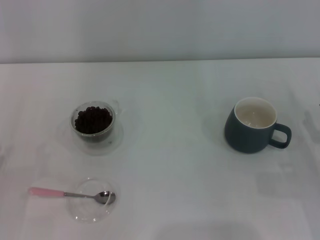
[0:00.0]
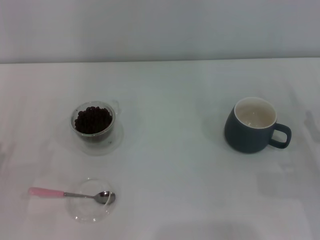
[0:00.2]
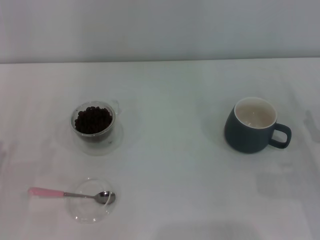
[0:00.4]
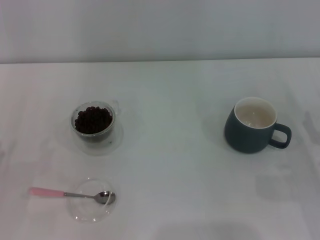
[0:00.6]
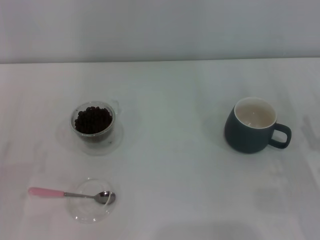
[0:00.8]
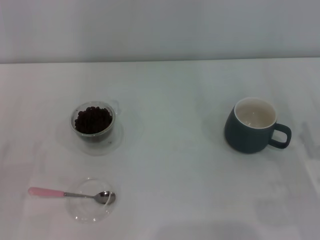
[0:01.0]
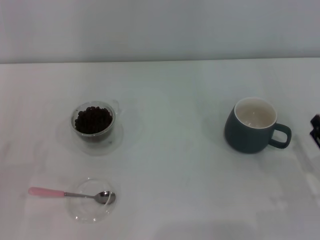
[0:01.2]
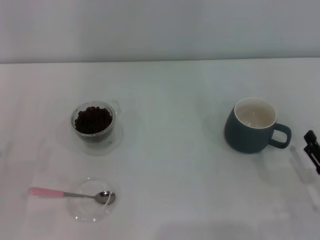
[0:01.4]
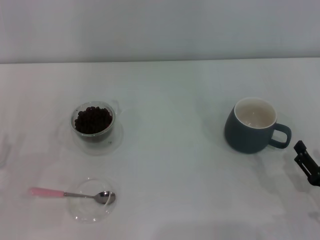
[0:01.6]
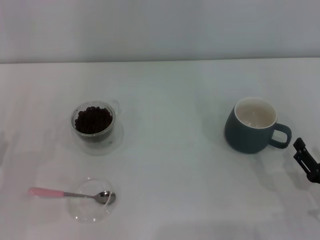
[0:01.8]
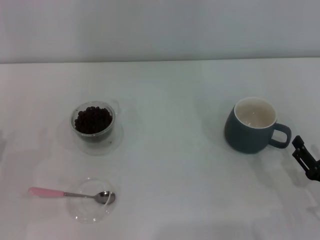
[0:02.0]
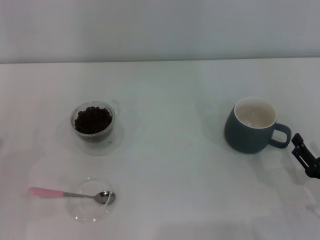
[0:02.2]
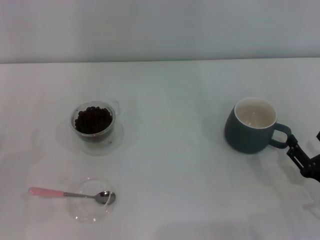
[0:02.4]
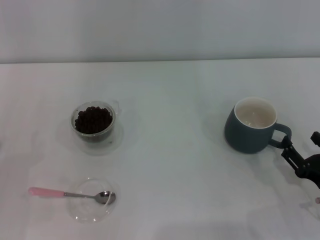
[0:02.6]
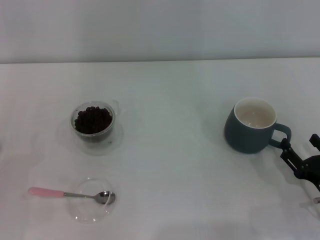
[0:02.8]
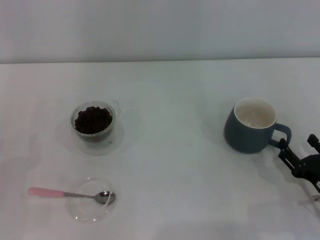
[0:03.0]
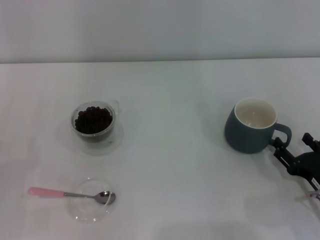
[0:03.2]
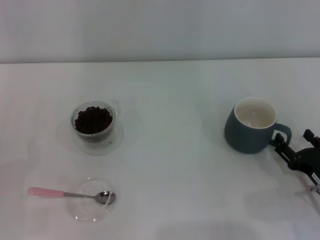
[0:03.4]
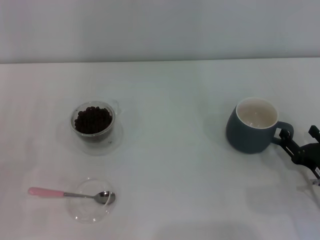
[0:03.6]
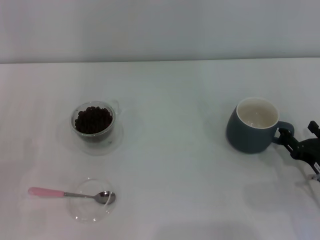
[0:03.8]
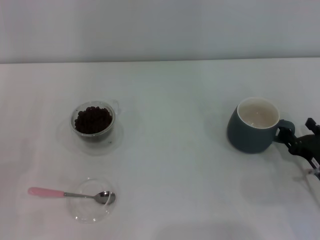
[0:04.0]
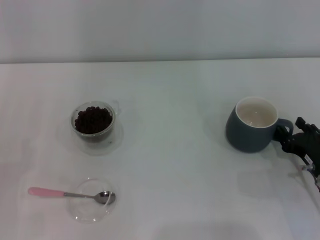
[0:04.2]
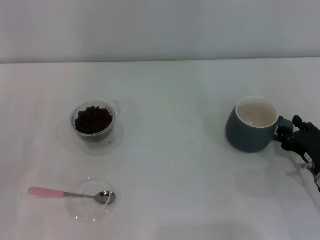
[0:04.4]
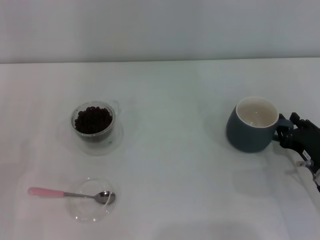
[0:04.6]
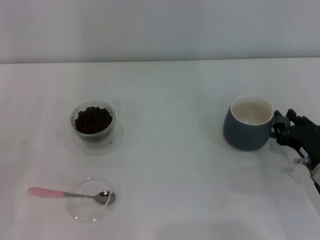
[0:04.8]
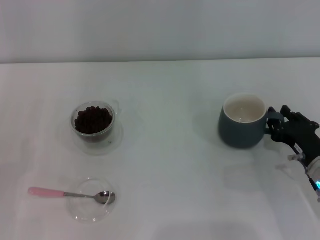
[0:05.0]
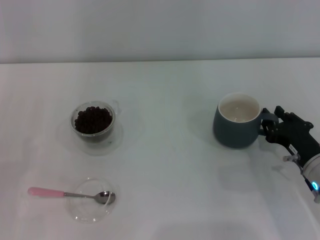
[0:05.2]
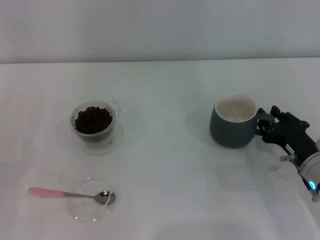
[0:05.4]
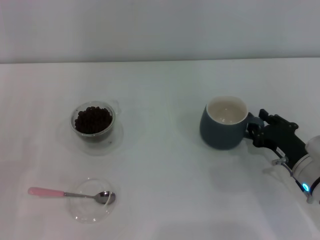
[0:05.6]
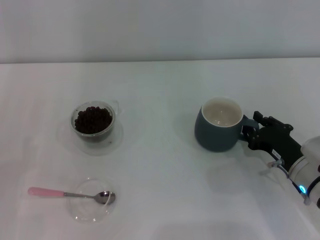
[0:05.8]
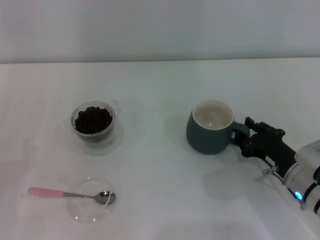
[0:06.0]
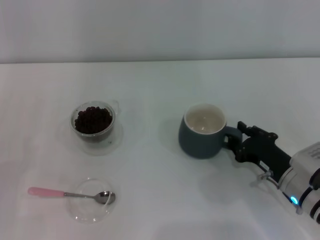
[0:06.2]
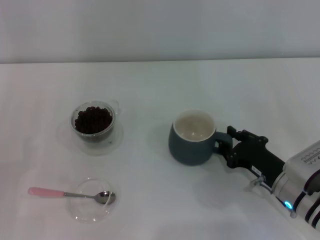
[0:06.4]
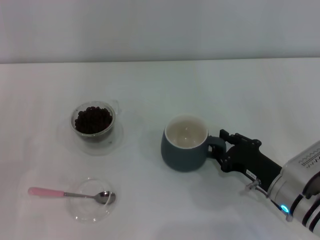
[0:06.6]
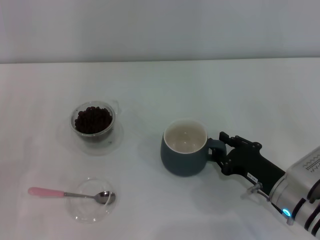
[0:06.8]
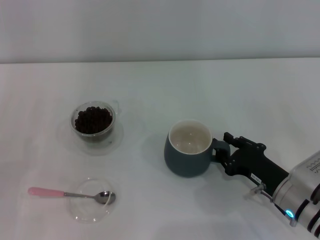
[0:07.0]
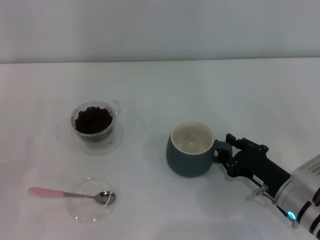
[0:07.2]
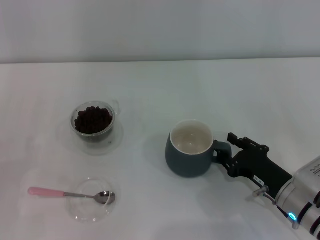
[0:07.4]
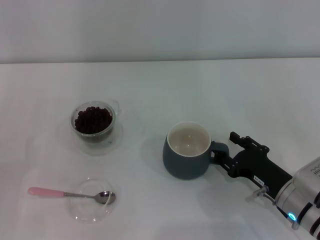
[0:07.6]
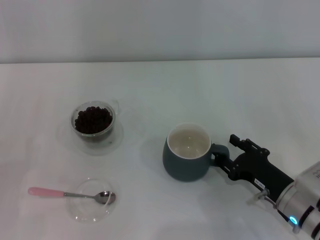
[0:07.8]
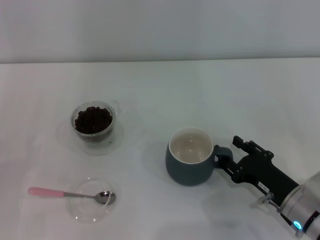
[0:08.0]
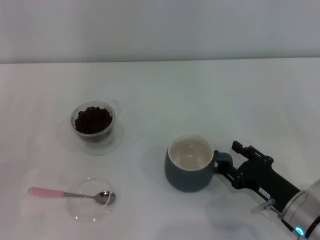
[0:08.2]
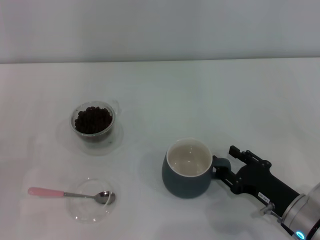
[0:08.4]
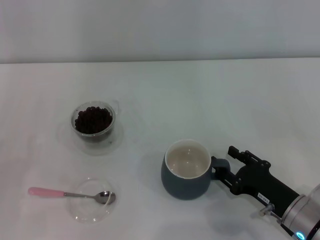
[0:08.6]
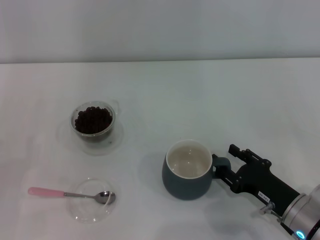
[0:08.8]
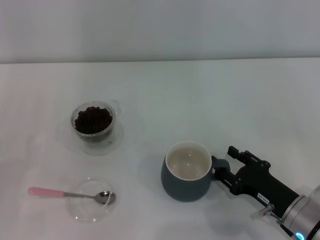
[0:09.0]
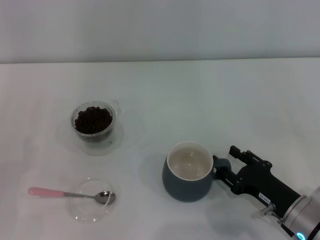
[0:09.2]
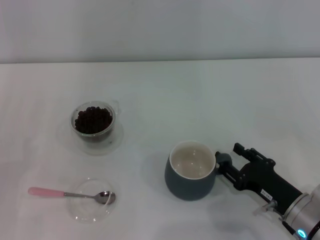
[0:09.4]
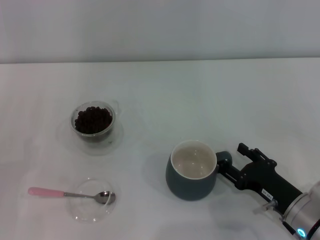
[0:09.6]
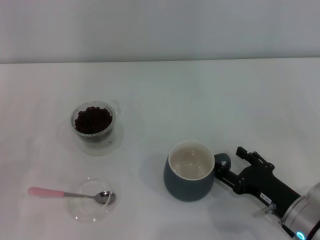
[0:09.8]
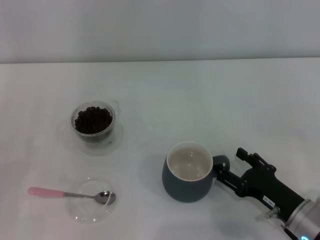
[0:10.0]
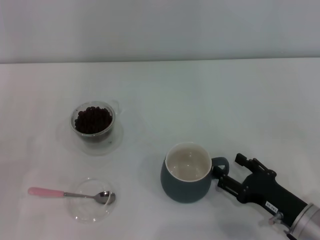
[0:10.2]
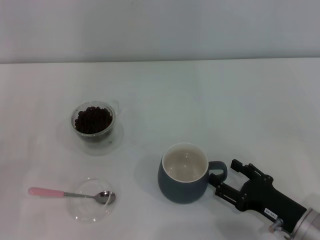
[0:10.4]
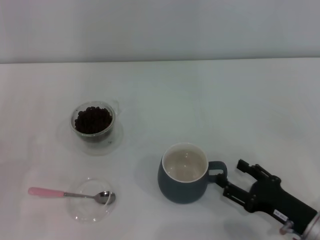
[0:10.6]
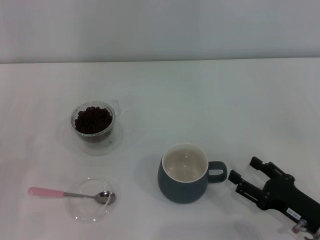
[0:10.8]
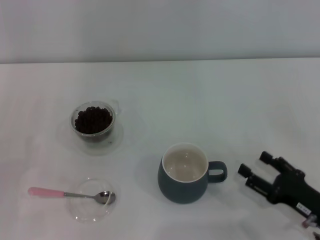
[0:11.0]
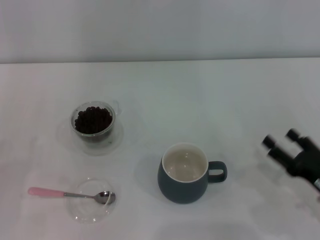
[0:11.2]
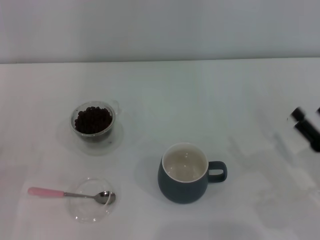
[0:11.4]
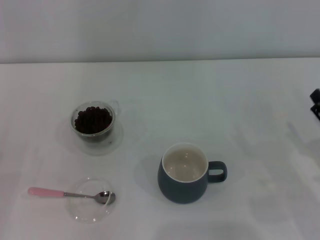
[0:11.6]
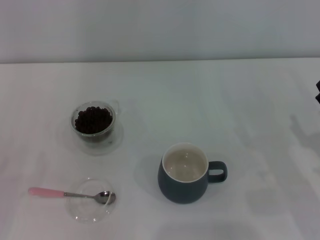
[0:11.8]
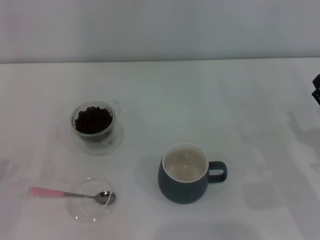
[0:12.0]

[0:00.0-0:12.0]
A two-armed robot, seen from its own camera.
Task of the whole recording: Use a pink spoon to take out the coffee beans from the glass and pour them into the gray cup.
Step, 0:00.0 to 0:10.6: Move the cup to the center of view with the left gripper.
0:00.0 to 0:01.6: The right gripper heads backward, covering roughly 10 cm.
0:01.6 to 0:03.0: There are only small adjustments of the grippers.
0:03.0 to 0:04.4: The right gripper goes approximately 5 cm forward, and closes up.
0:04.4 to 0:06.0: The right gripper closes its fingers.
0:06.0 to 0:07.6: The grippers stay close to where they were, moving slightly.
0:07.6 to 0:09.0: The right gripper opens its fingers.
0:09.0 to 0:10.4: The right gripper opens its fingers.
0:10.4 to 0:12.0: The right gripper is displaced to the right by about 10 cm.

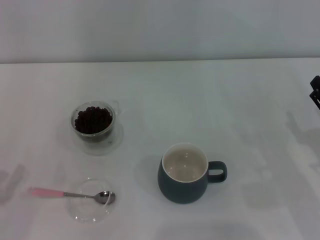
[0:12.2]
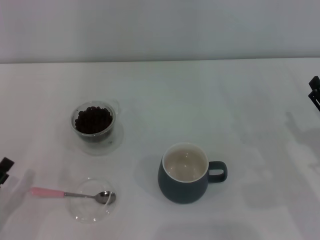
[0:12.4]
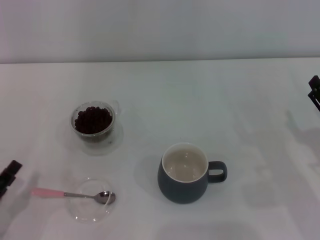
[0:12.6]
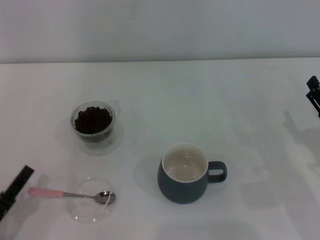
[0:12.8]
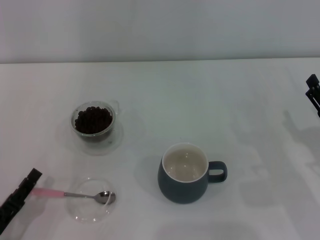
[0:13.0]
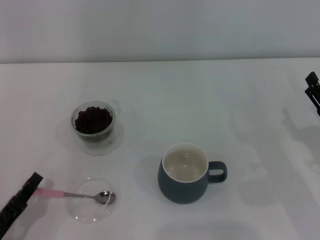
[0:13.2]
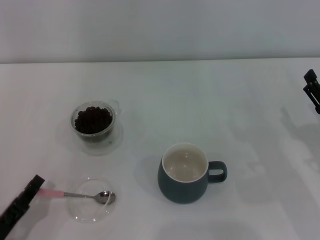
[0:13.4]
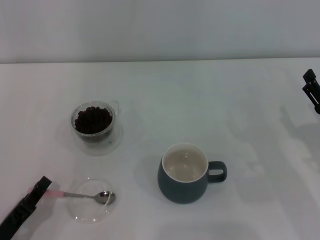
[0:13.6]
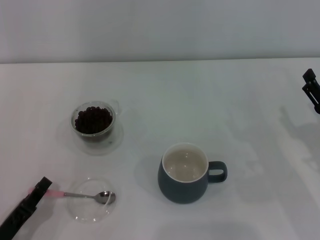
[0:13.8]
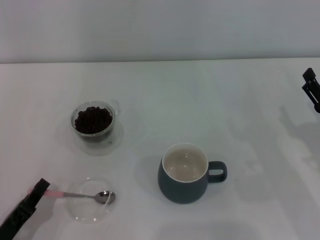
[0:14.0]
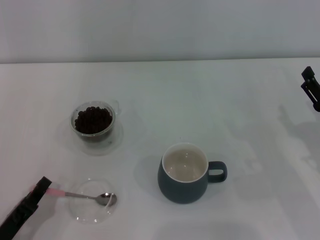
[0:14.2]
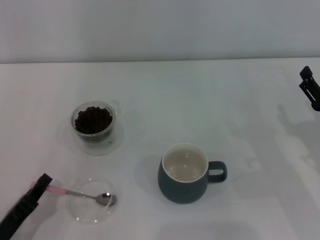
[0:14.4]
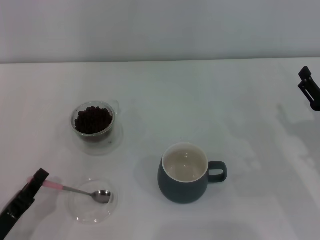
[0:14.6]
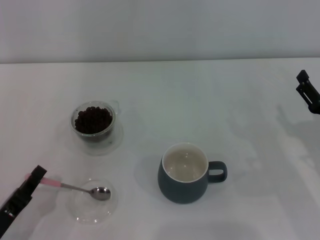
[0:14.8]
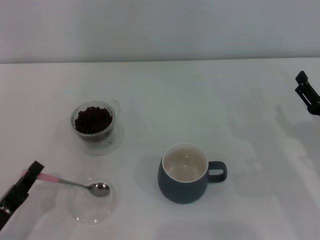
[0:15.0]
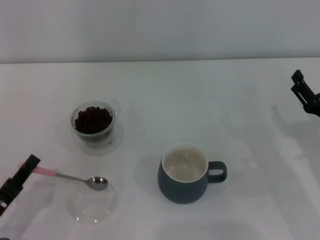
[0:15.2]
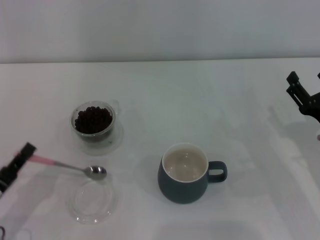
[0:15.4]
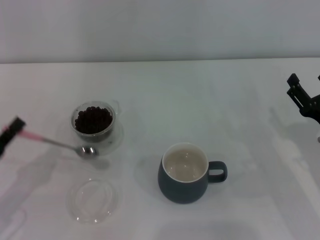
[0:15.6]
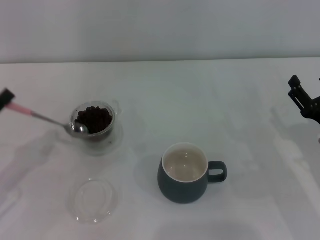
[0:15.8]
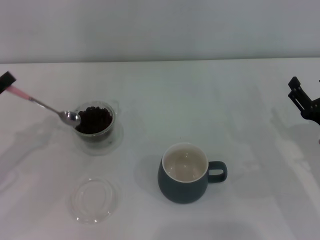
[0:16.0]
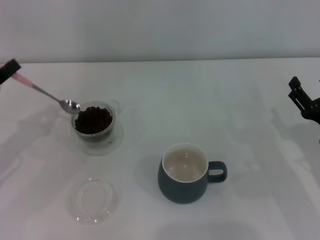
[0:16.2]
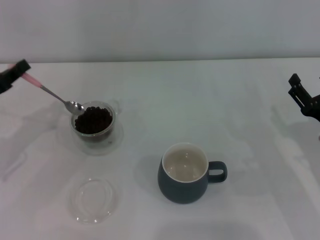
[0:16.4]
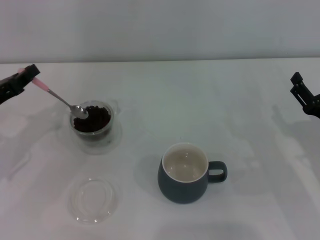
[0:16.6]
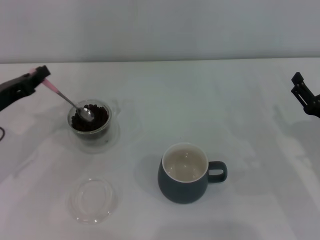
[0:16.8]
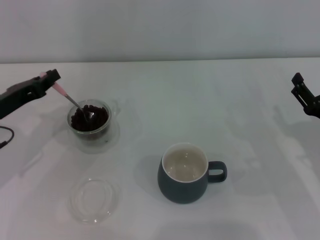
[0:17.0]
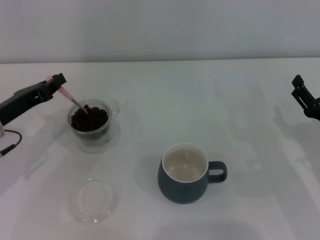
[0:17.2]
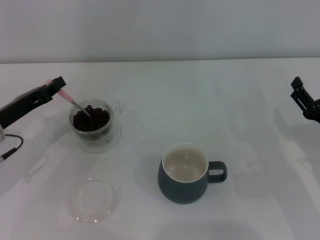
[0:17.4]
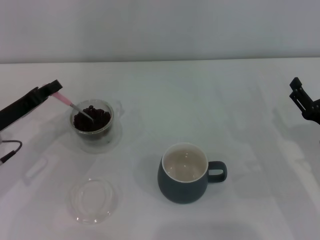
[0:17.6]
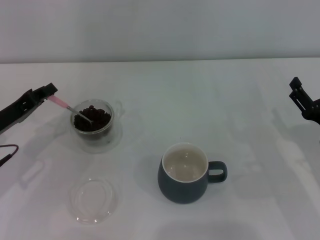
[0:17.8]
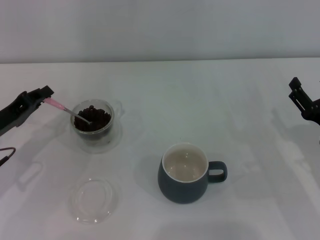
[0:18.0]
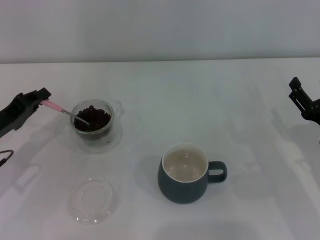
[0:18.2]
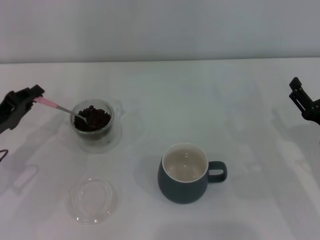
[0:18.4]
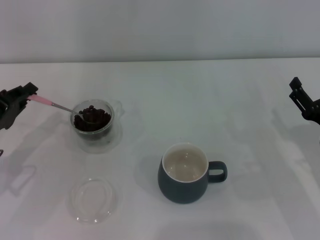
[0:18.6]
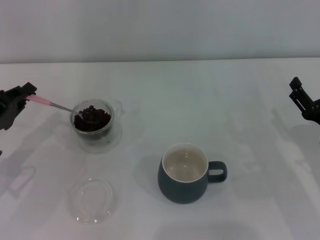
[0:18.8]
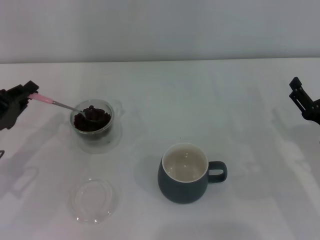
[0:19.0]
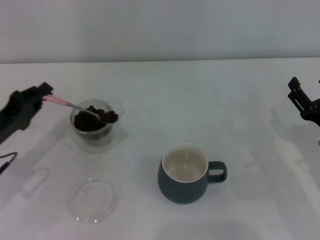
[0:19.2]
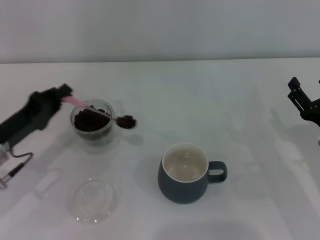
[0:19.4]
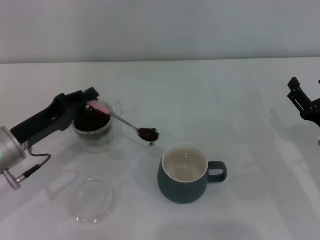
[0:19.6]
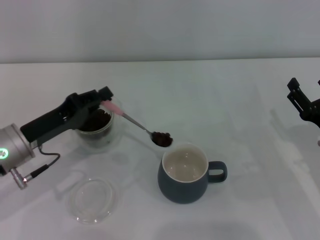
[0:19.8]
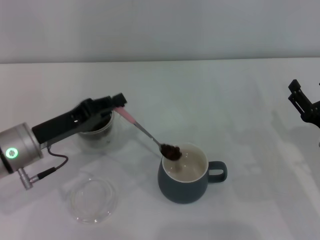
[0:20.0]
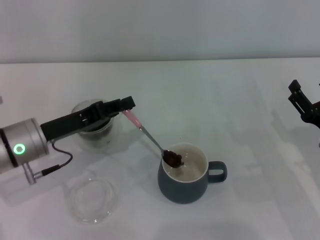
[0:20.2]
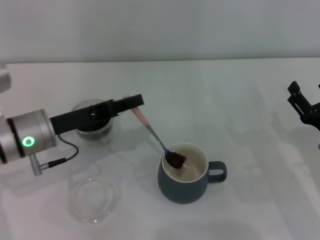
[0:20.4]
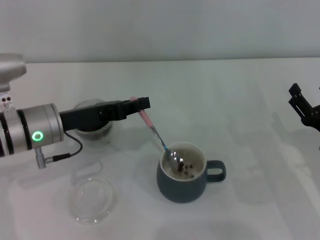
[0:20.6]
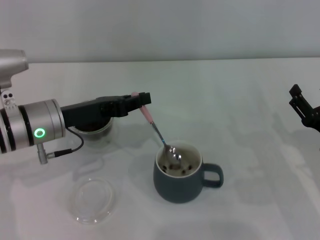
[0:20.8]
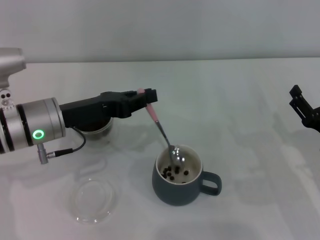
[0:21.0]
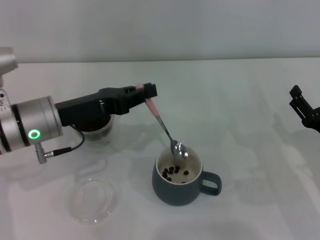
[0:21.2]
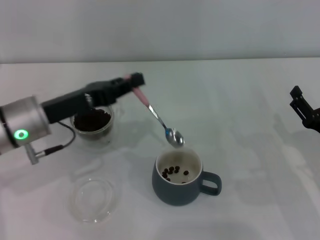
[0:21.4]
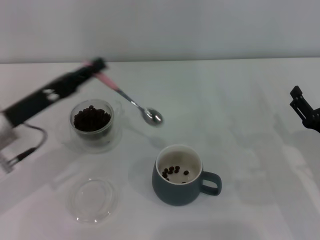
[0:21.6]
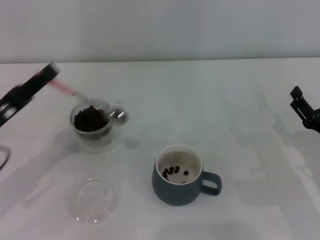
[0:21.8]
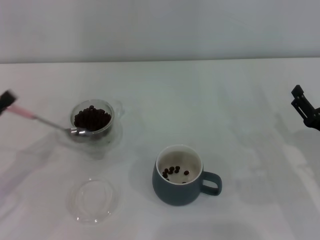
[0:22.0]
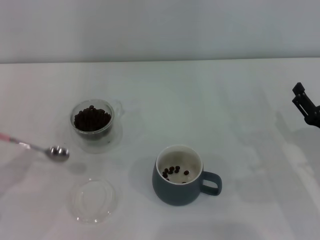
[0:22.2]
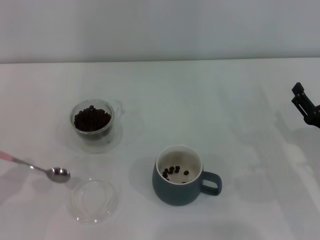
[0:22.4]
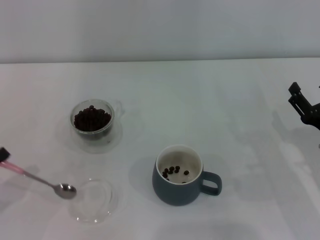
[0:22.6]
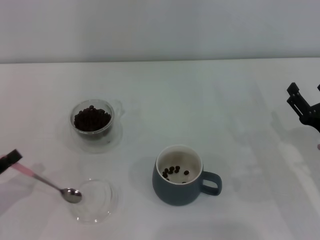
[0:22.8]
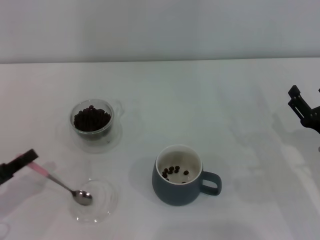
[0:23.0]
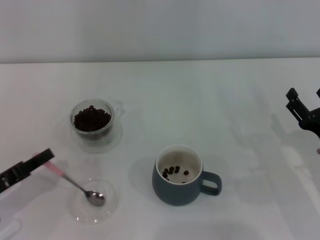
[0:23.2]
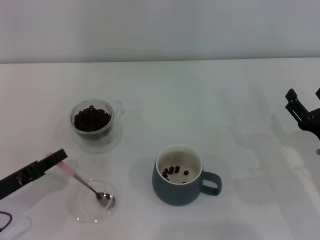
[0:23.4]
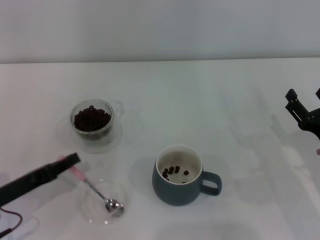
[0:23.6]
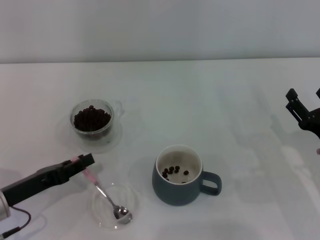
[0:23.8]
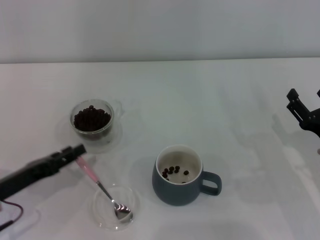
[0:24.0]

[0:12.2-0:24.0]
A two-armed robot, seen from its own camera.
Task of the whole recording: Use a pink spoon to take out the coffee beans from the glass and pour them into the gray cup.
Step, 0:12.2 to 0:15.2: Pick up the spoon with the right gripper.
0:12.2 to 0:13.6: The left gripper goes some 5 cm to the right, and closes its fingers.
0:13.6 to 0:15.2: There are only small adjustments of the grippers.
0:15.2 to 0:16.6: The left gripper heads forward and upward, covering some 20 cm.
0:18.2 to 0:19.6: The left gripper heads to the right, covering approximately 5 cm.
0:19.6 to 0:21.0: The left gripper heads to the right, covering roughly 5 cm.
0:21.0 to 0:22.6: The left gripper heads to the left, backward and downward, covering some 25 cm.
0:22.6 to 0:24.0: The left gripper moves to the right and forward, roughly 10 cm, and opens.
